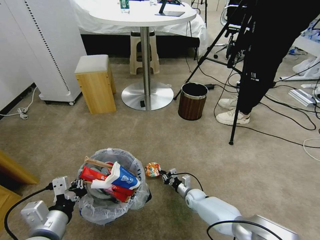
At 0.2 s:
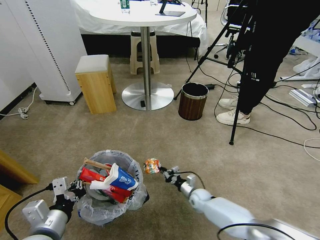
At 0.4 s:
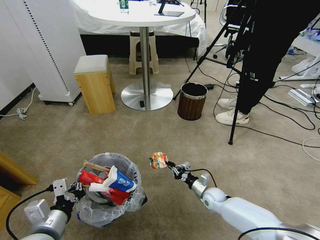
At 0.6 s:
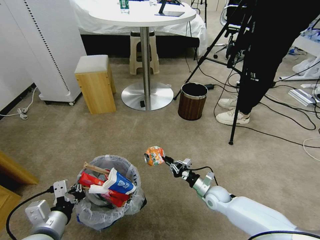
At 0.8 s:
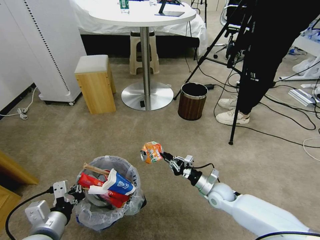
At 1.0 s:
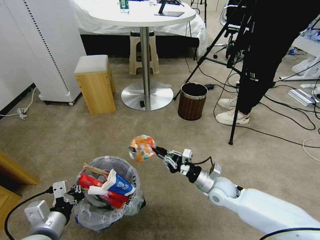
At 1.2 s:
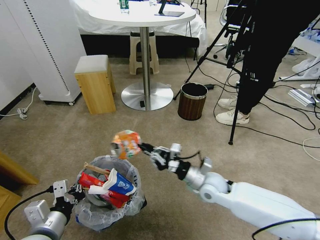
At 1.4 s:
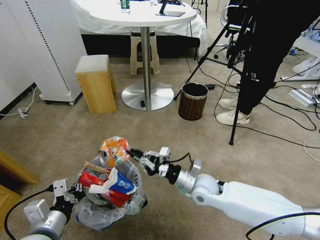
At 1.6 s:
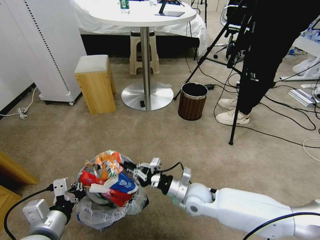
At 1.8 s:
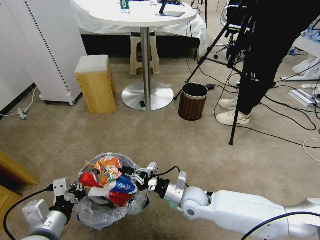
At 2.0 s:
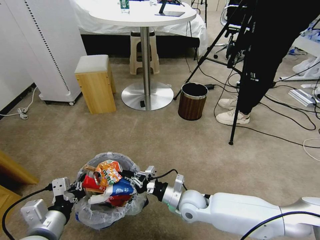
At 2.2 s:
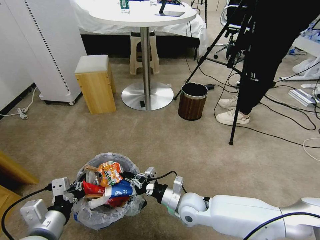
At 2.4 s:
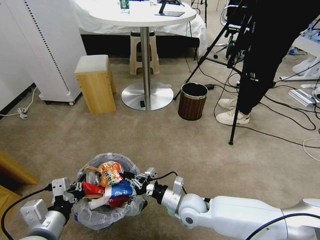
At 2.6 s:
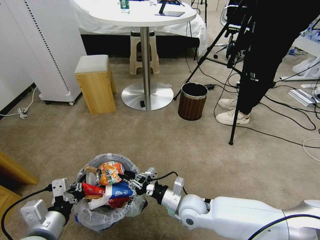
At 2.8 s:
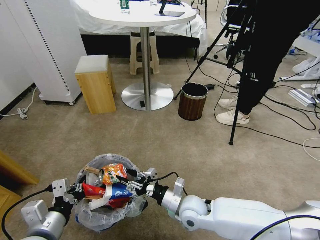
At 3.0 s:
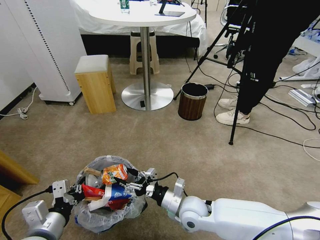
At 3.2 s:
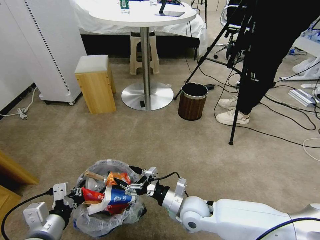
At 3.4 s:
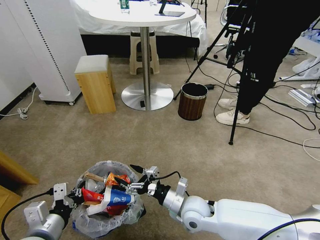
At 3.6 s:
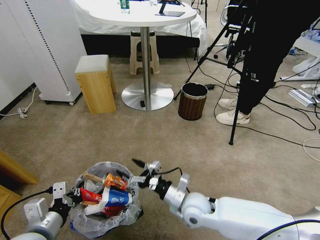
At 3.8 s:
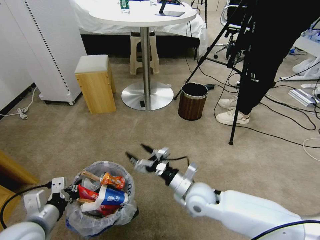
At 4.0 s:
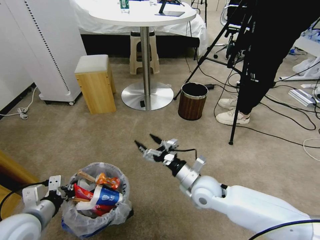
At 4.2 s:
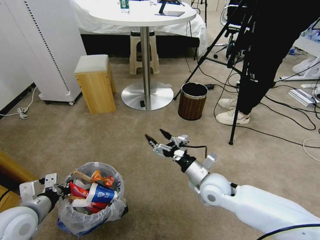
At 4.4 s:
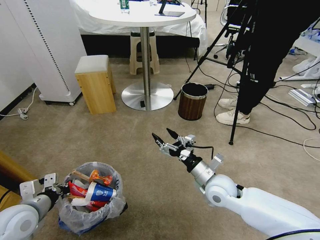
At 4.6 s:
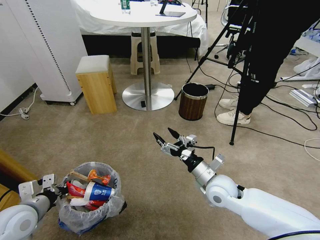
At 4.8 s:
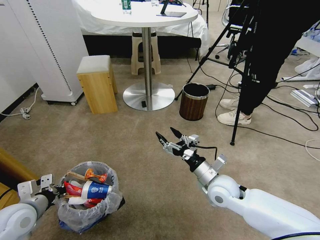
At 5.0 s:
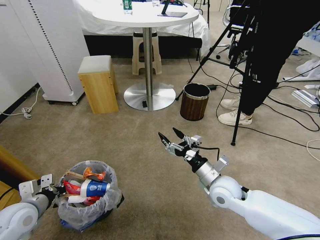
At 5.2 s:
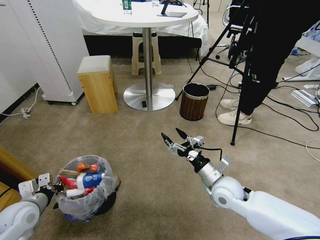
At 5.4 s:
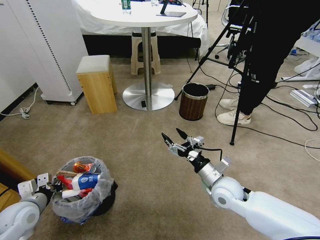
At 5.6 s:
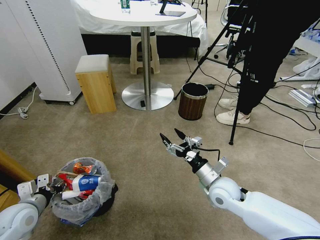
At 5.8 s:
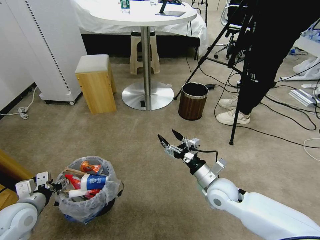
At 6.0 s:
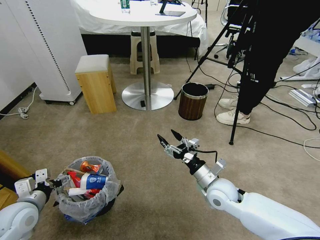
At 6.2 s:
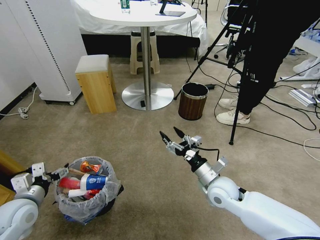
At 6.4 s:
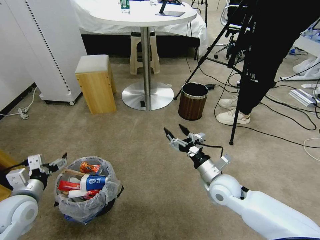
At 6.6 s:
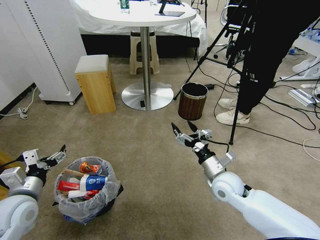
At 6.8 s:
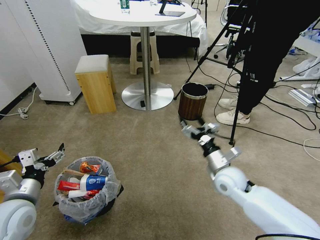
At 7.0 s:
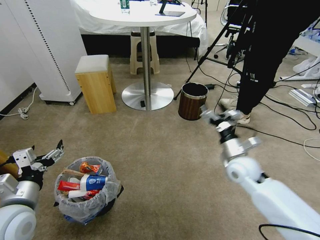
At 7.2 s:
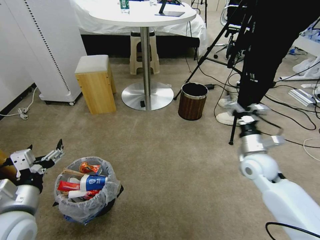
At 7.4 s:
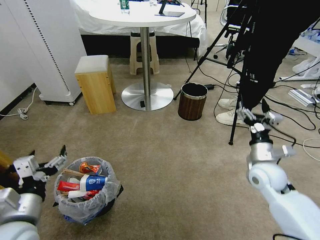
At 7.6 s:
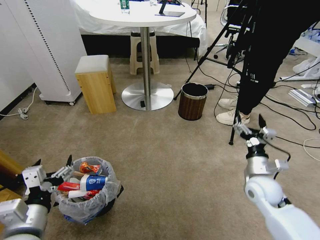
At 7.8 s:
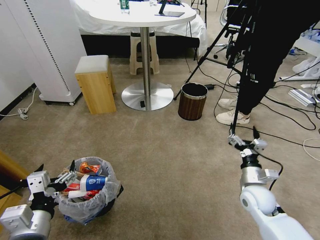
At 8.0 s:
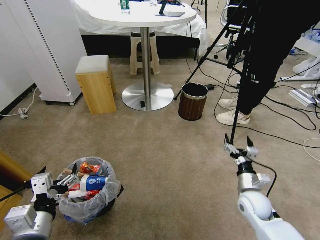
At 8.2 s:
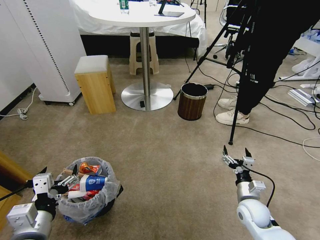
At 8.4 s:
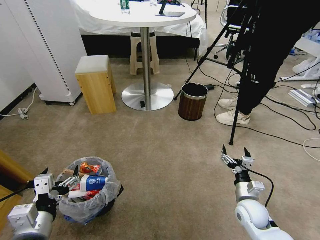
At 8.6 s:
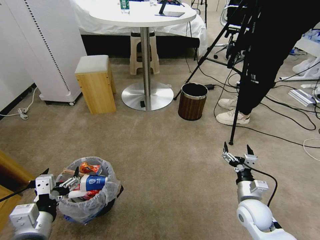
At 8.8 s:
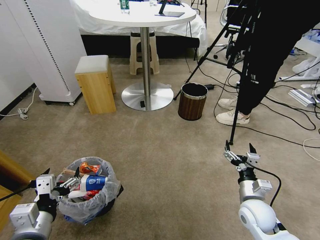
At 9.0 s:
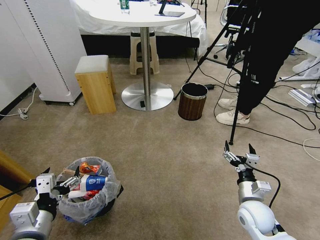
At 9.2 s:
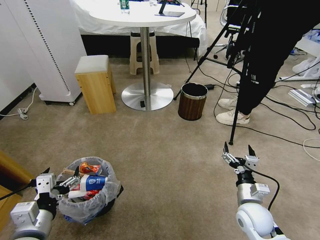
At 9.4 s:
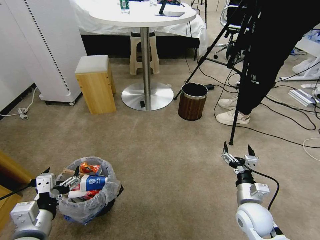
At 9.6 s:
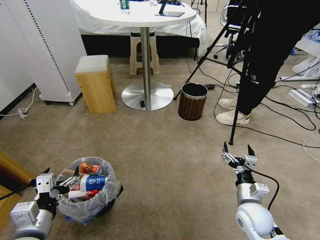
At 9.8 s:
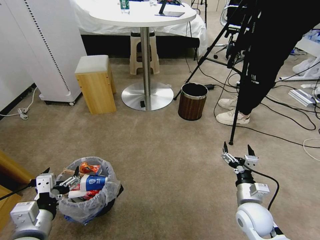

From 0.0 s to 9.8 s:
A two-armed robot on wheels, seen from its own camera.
Task of the whole recording: Pick up the trash bin and place the garbage on the floor into it.
From 0.0 s to 1.4 s: The right gripper is displaced upward by roughly 25 cm.
From 1.4 s to 2.8 s: The right gripper is displaced backward by approximately 5 cm, and opens its fingers.
From 2.8 s to 4.2 s: The left gripper shifts some 10 cm to the left and forward. The right gripper is displaced upward and to the right by approximately 10 cm, and opens its fingers.
From 4.2 s to 5.6 s: The left gripper shifts roughly 5 cm downward, and opens.
From 5.6 s to 7.0 s: The left gripper shifts some 10 cm upward and to the right, and opens, while the right gripper shifts roughly 10 cm to the right, forward and upward.
From 7.0 s to 8.4 s: The left gripper goes roughly 10 cm backward and to the right. The right gripper is displaced downward and backward by roughly 15 cm.
From 8.4 s to 9.8 s: The right gripper shifts by approximately 5 cm.
